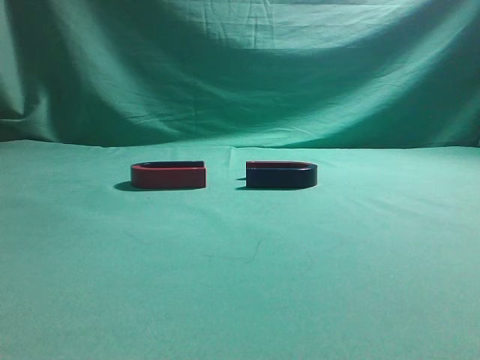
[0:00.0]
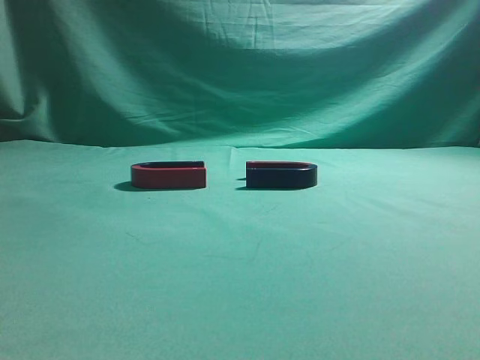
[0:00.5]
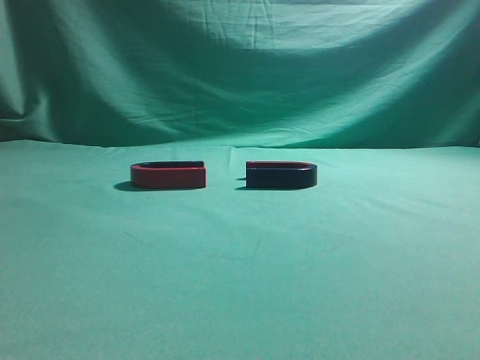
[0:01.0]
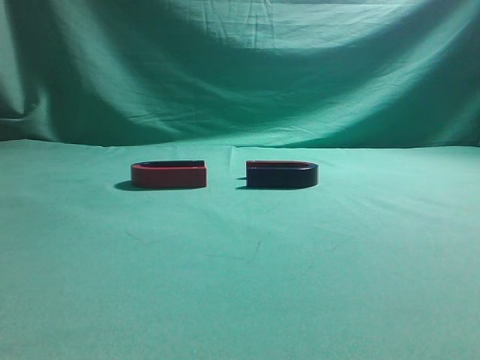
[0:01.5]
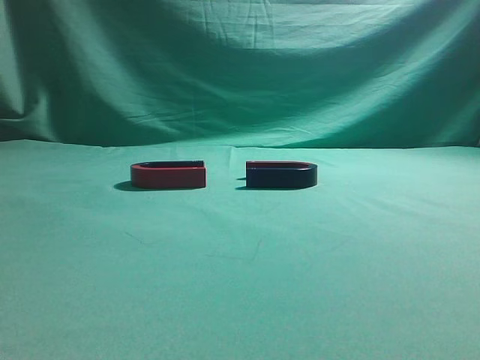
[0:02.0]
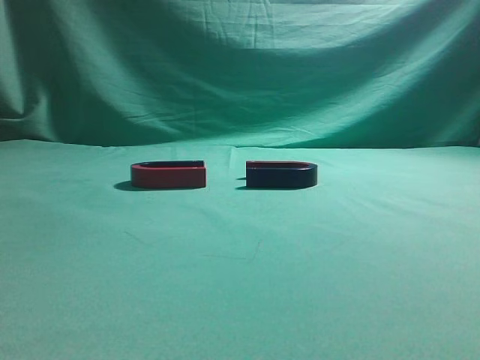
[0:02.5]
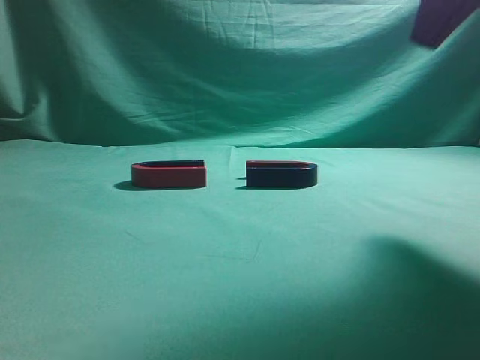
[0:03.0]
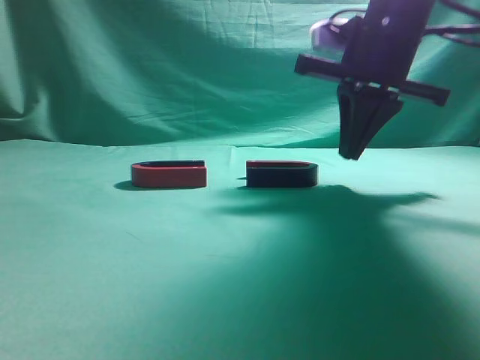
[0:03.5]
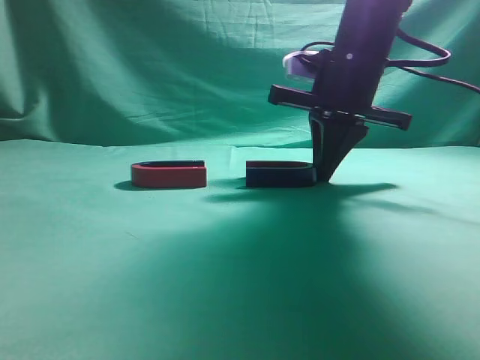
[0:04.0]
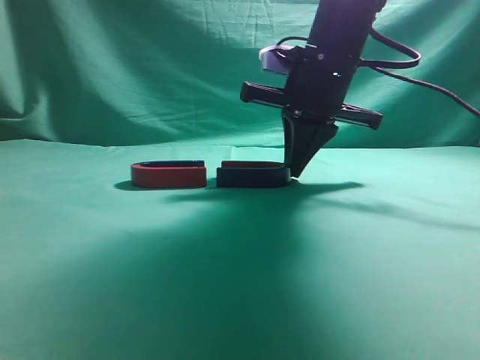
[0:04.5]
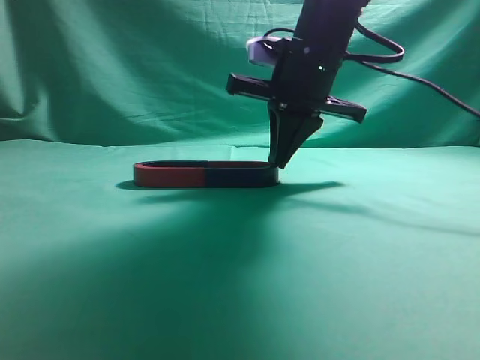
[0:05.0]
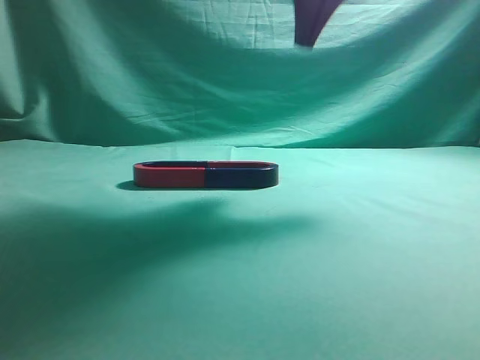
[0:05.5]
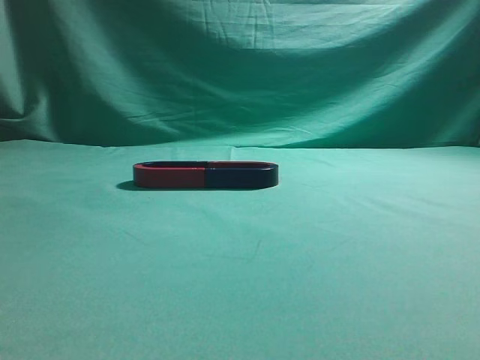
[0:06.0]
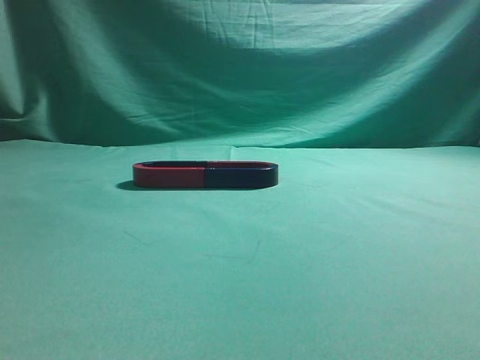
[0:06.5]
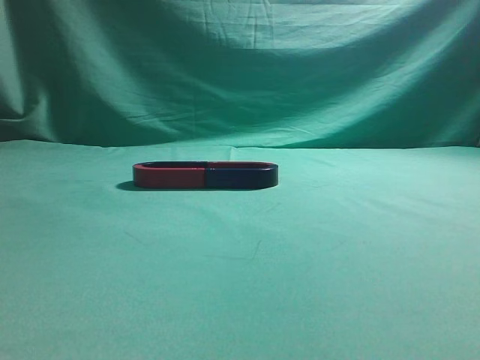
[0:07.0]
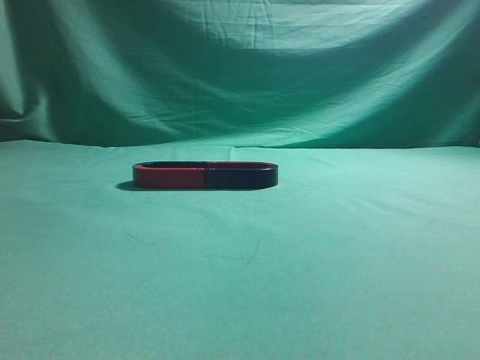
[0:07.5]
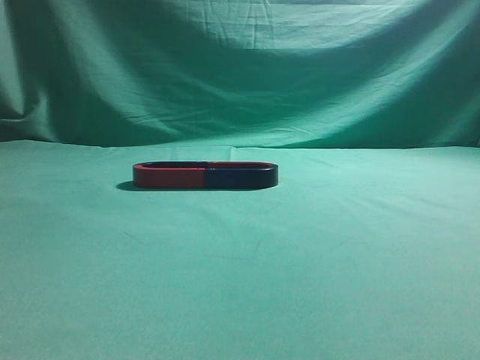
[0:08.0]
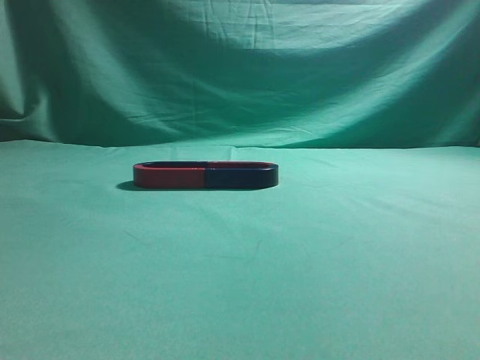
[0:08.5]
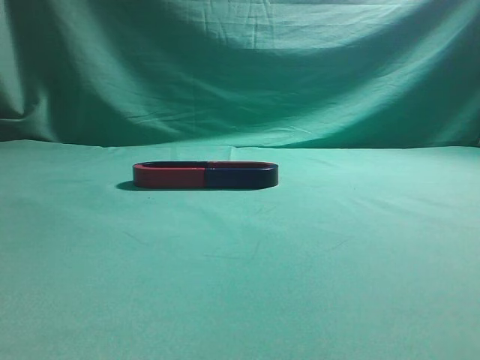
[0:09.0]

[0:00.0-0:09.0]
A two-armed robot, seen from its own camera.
Task of the whole recording: push the magnet on the table from its original position to another position.
Step, 0:00.0 to 0:05.0: Push the magnet on the right to connect the magnet on the left.
0:02.0 to 0:04.5: The right gripper moves forward and to the left, about 40 cm.
0:04.5 to 0:07.0: The right gripper shifts some 40 cm backward, upward and to the right.
